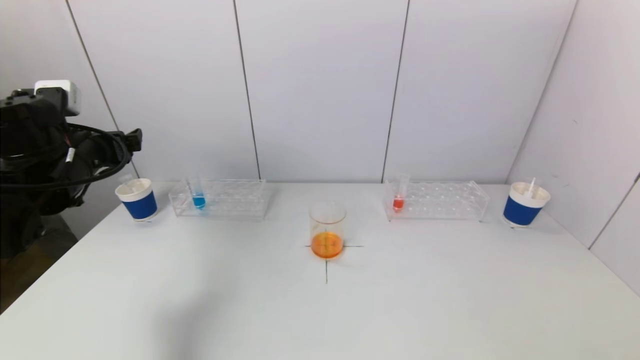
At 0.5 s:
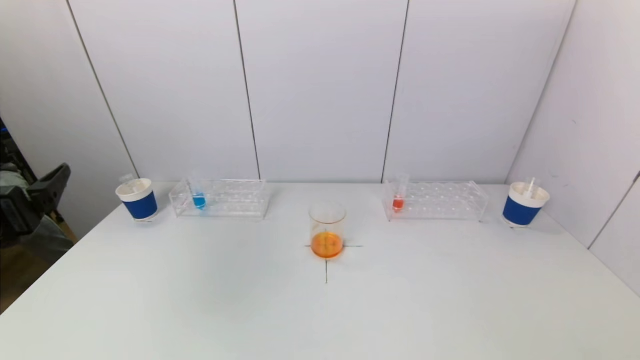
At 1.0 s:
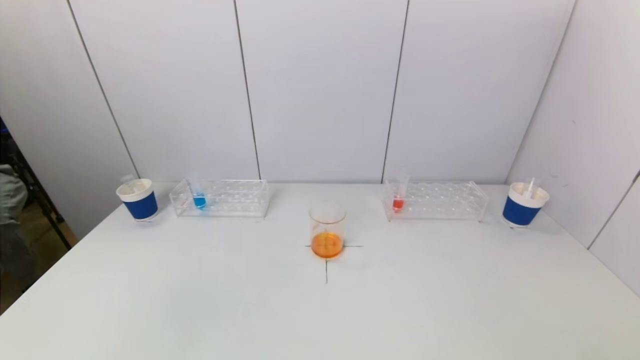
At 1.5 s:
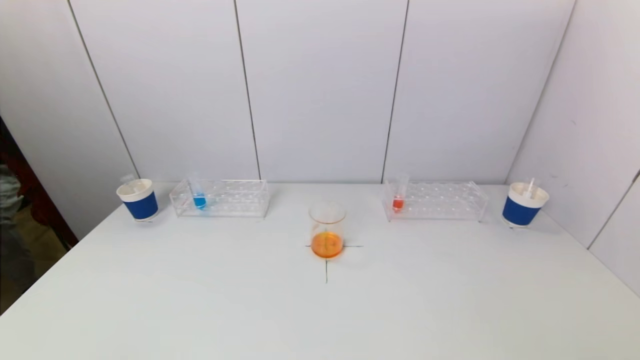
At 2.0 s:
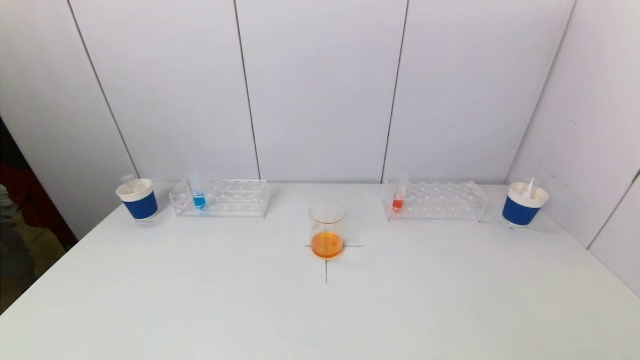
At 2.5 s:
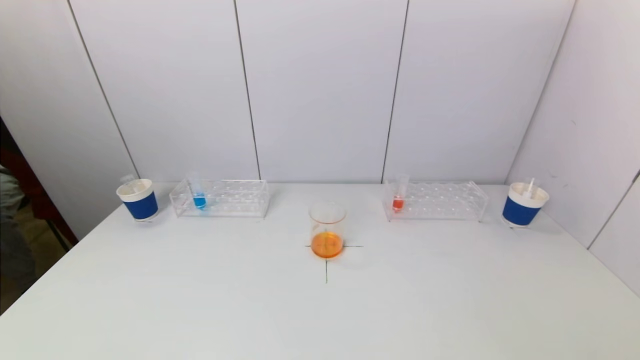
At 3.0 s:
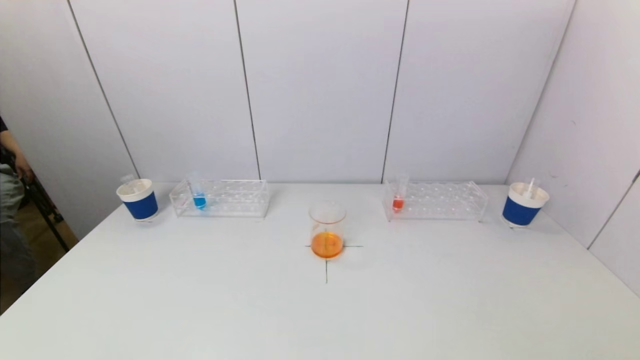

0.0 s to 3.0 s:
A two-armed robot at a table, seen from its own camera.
Task of the whole recording: pick up a test tube with pigment on left test tube rack and a test tube with pigment on right test tube rack by grippers and pour them into the beaker.
0.0 to 1.5 s: The left gripper is displaced backward by some 35 cm.

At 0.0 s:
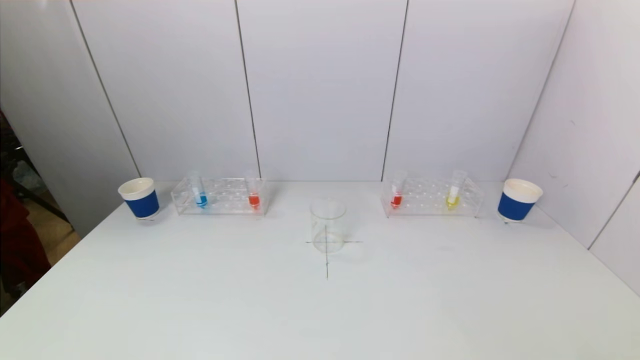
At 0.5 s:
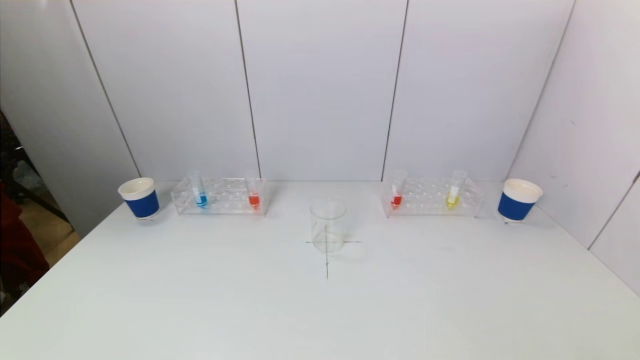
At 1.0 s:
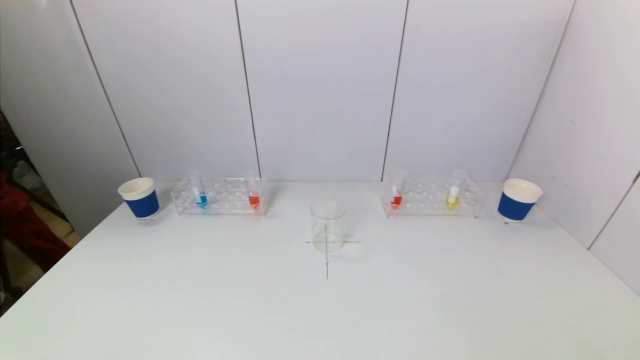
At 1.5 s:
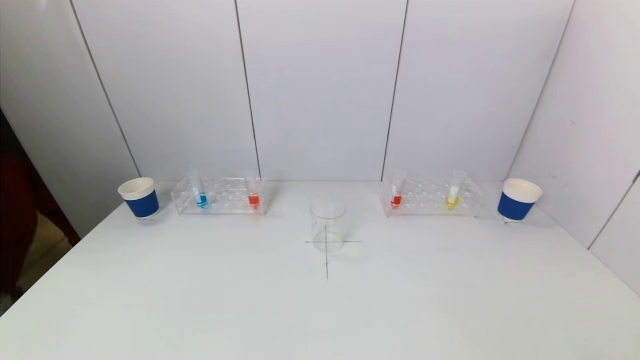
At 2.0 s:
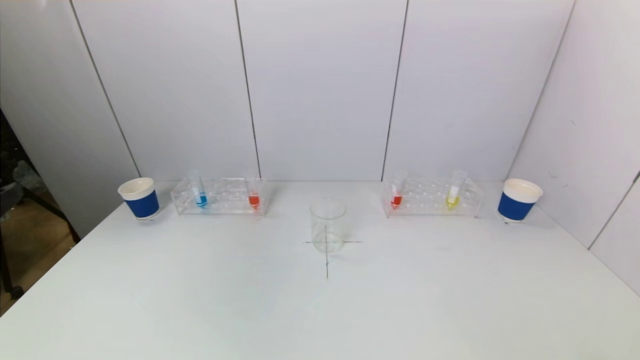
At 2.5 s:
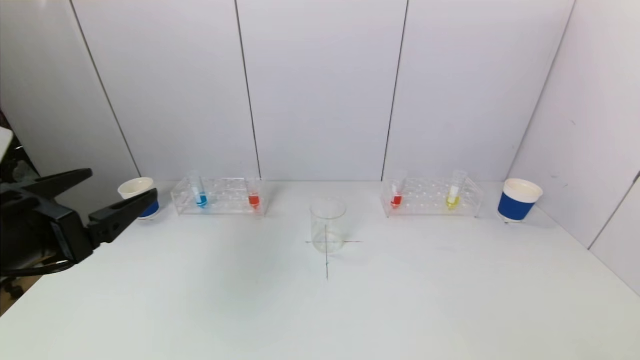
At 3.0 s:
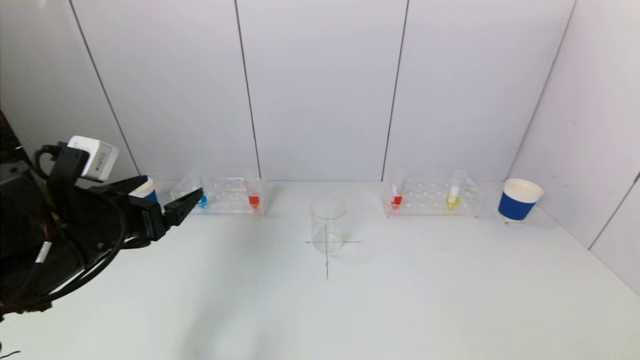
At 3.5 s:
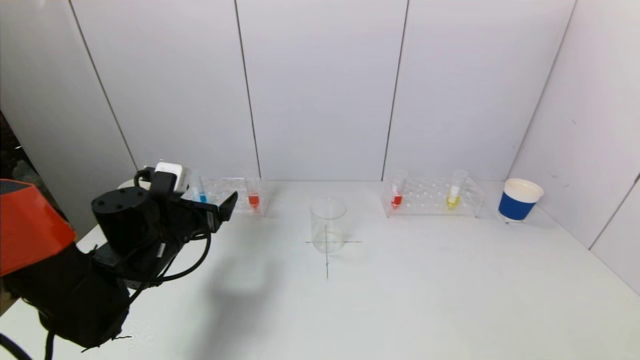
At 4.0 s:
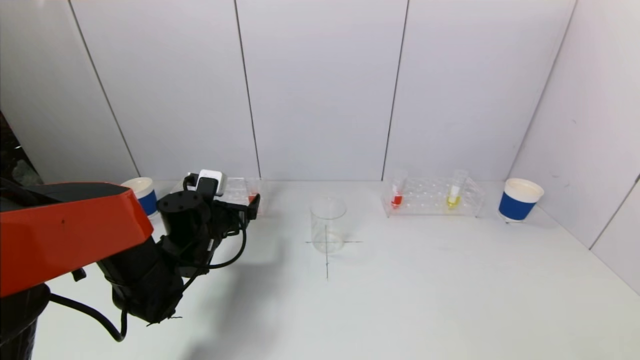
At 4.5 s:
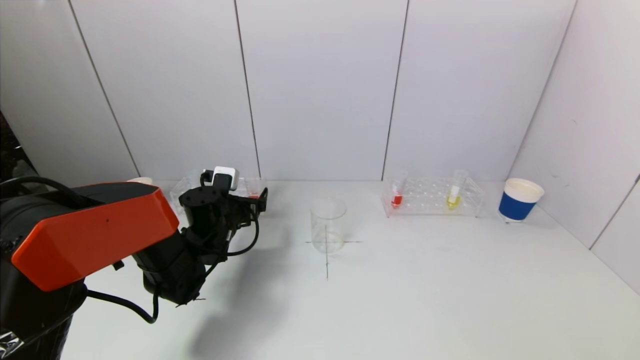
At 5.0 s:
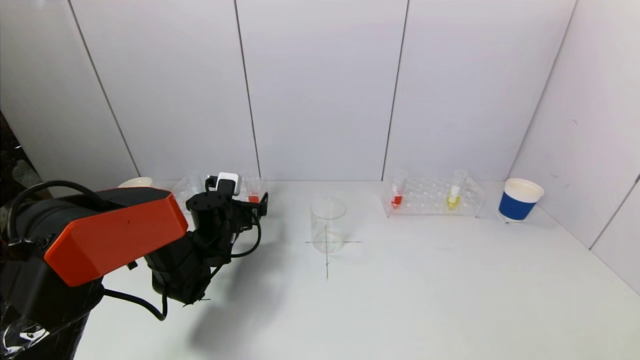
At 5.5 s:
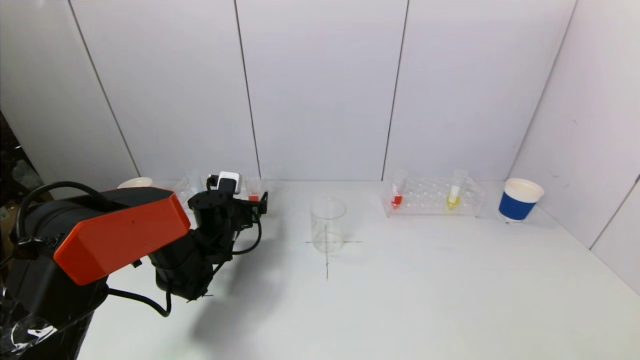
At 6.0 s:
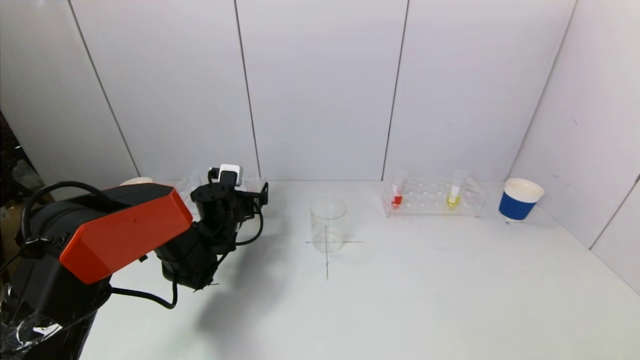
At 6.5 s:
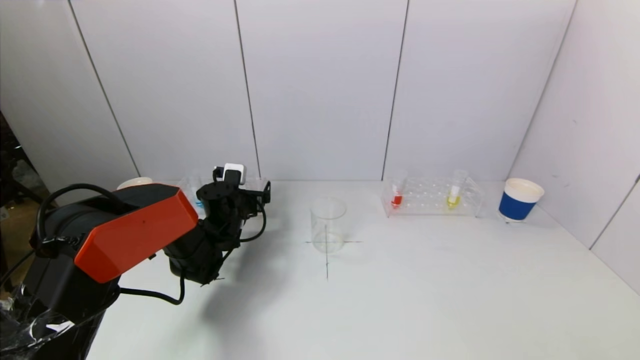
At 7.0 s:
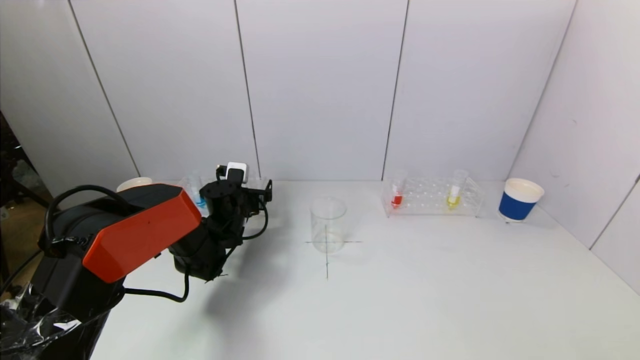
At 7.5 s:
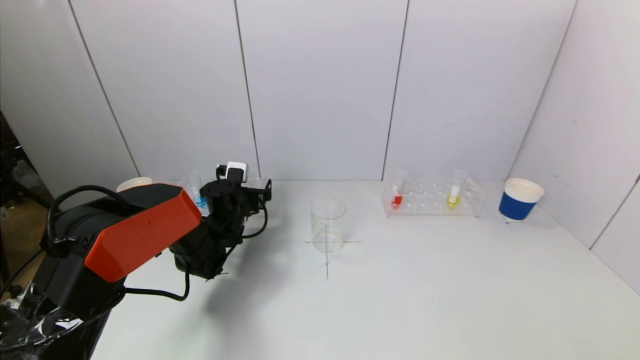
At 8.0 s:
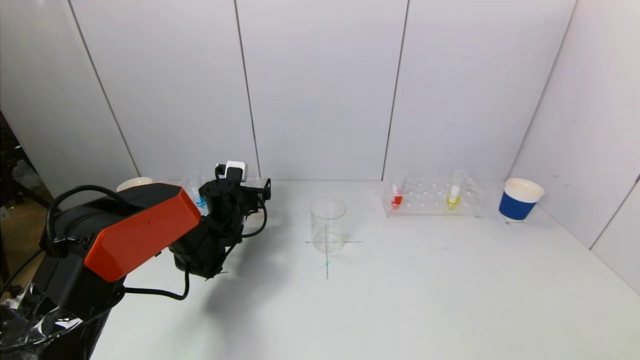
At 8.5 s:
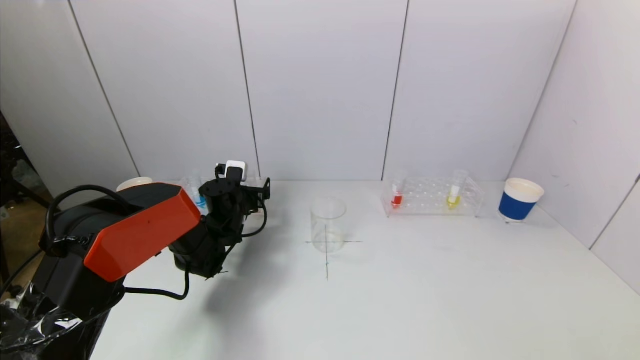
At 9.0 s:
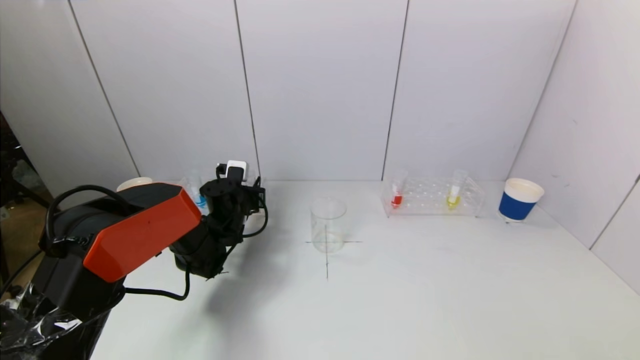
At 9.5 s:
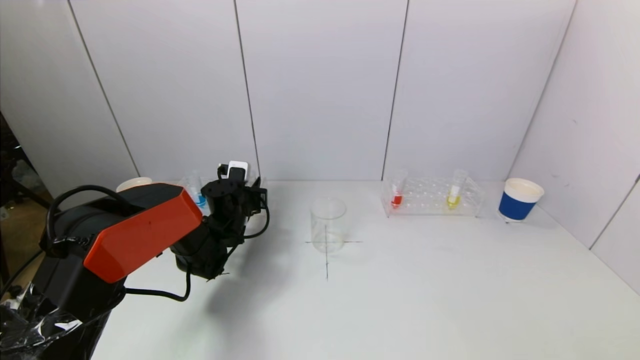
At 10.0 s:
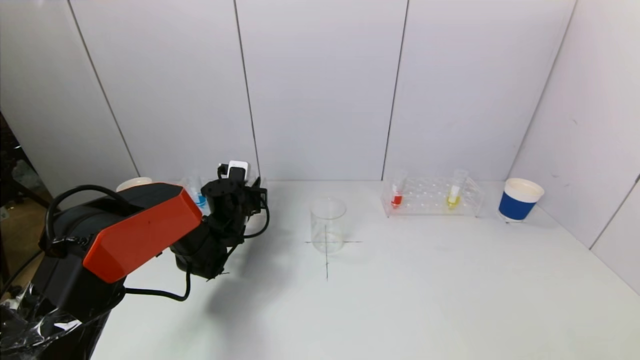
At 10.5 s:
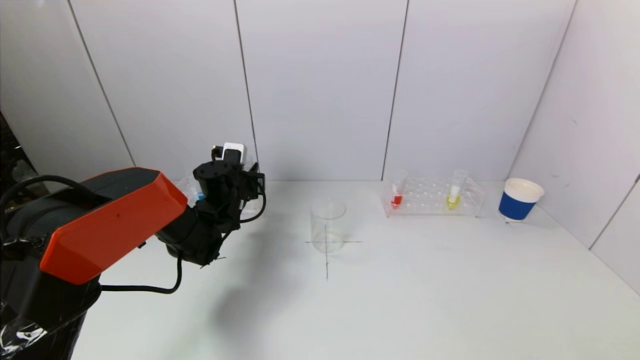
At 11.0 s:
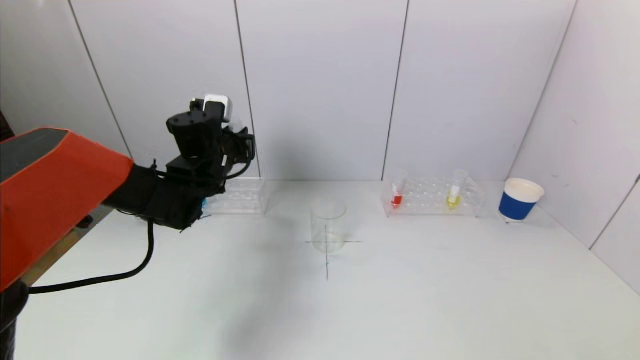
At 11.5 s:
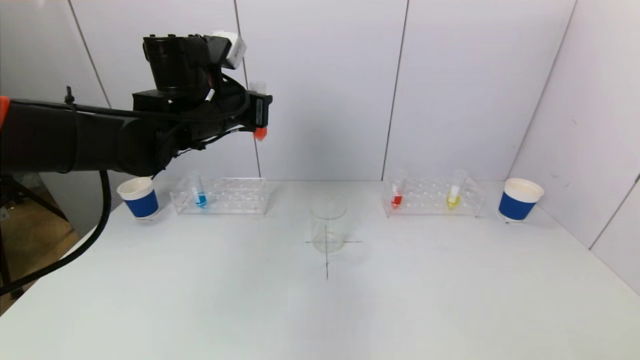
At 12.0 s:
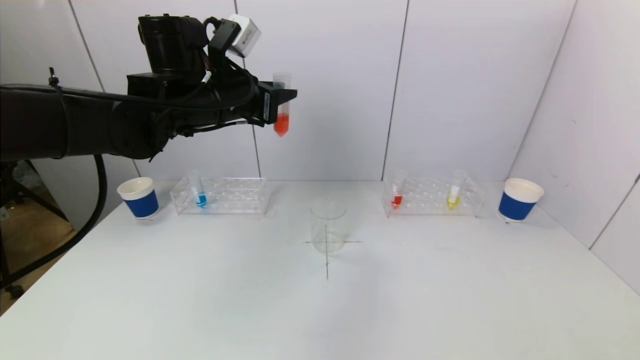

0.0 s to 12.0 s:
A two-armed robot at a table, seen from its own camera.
Task of the whole recording: pick up a test tube with pigment on left test tube rack and a test tube with pigment on right test tube rack by grippers and pour them into the beaker.
Step, 0.0 to 9.0 s: Grasp the red reagent with the left gripper.
0.0 to 2.0 s: The left gripper heads upward, covering some 20 cm.
2.0 to 4.0 s: The left gripper shifts about 35 cm forward and downward.
4.0 to 6.0 s: The left gripper is displaced forward by roughly 5 cm.
6.0 to 8.0 s: The grippers make only small movements.
8.0 to 10.0 s: The left gripper closes up.
10.0 to 12.0 s: The left gripper shifts some 25 cm upward.

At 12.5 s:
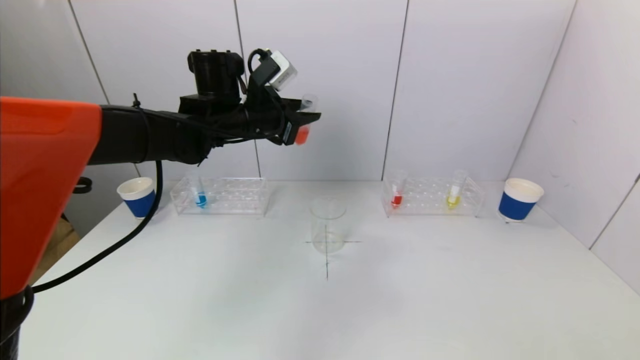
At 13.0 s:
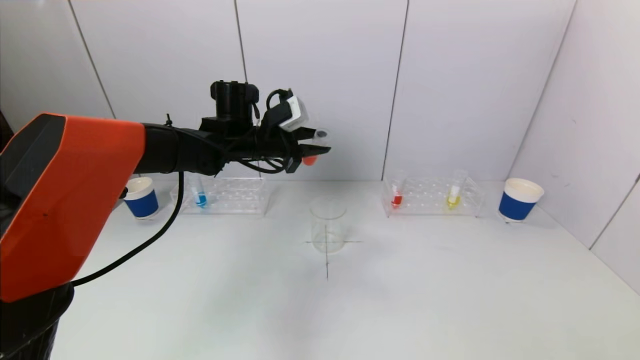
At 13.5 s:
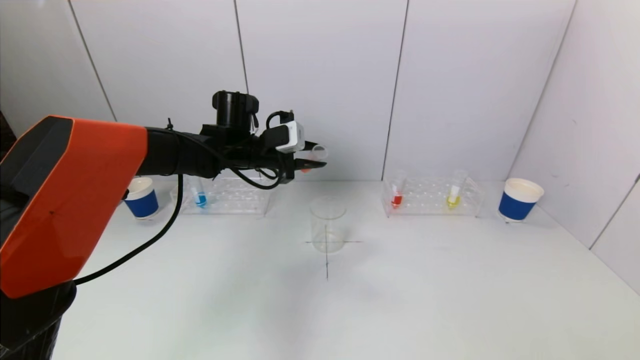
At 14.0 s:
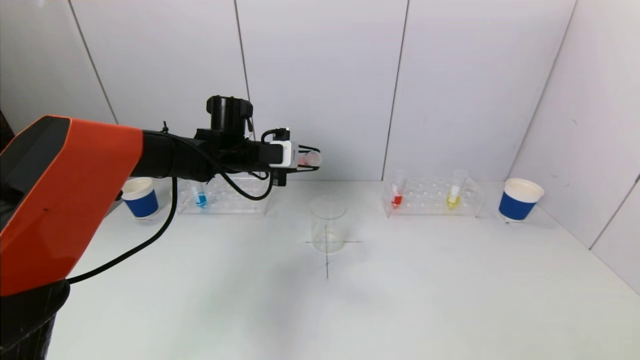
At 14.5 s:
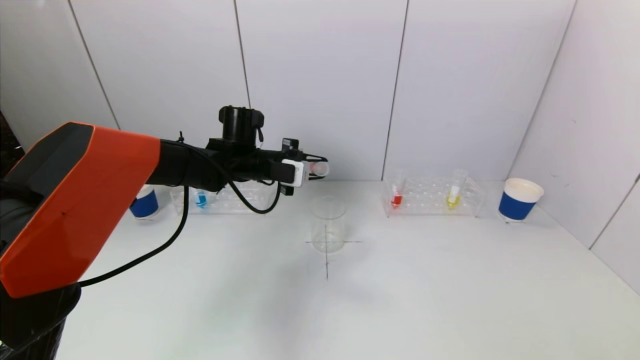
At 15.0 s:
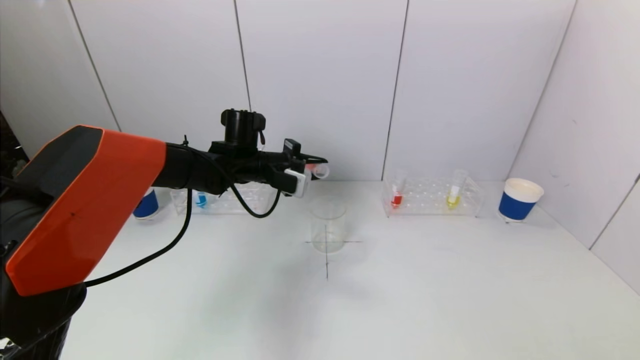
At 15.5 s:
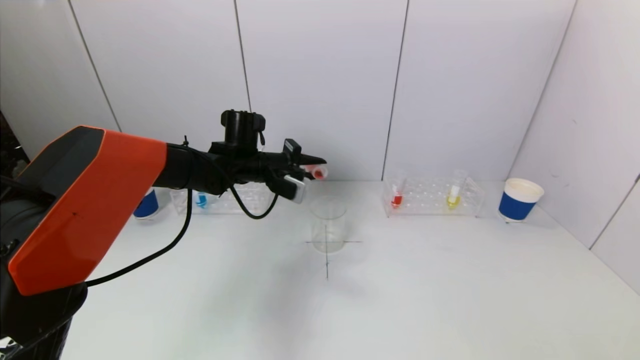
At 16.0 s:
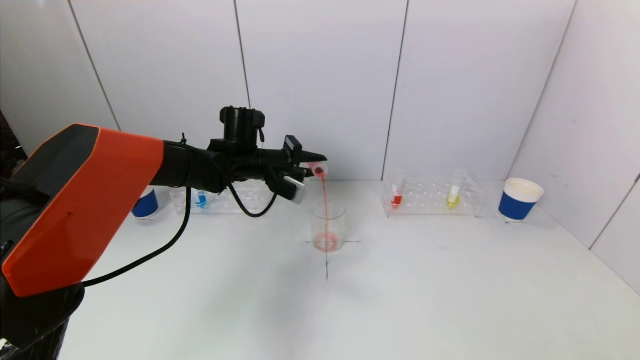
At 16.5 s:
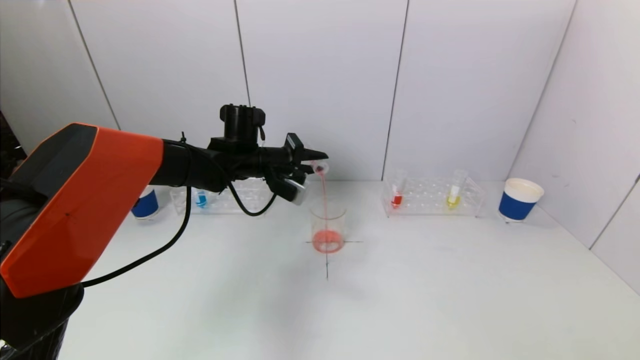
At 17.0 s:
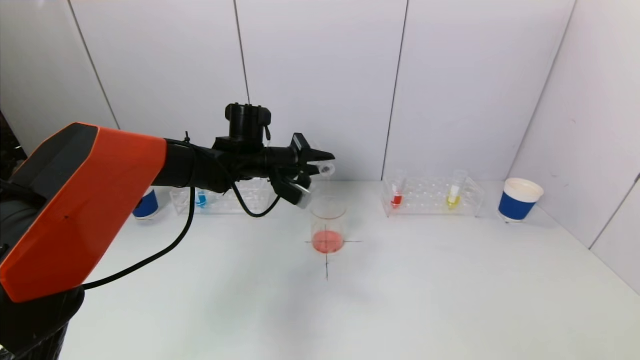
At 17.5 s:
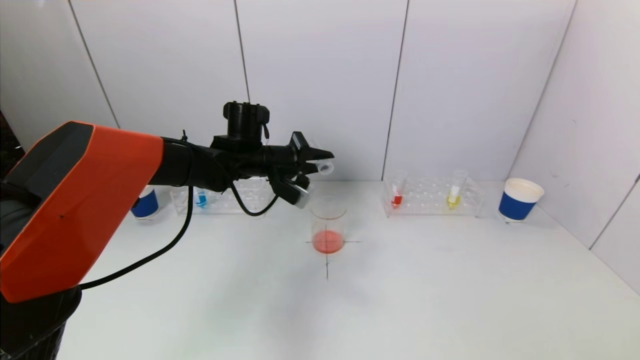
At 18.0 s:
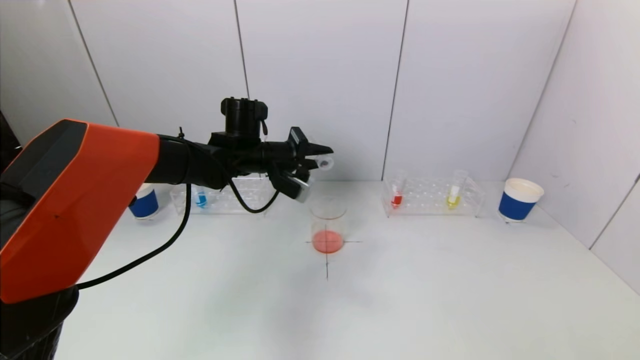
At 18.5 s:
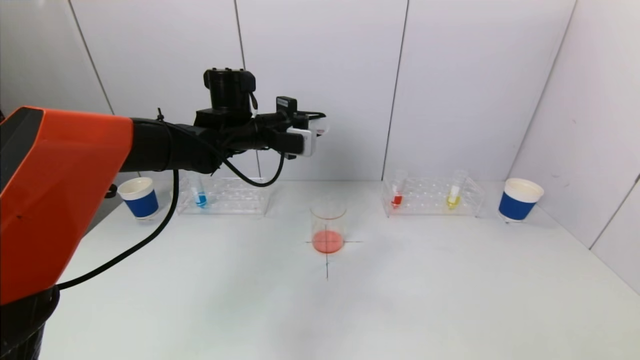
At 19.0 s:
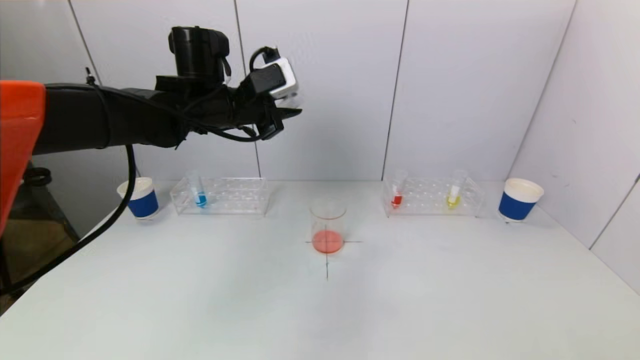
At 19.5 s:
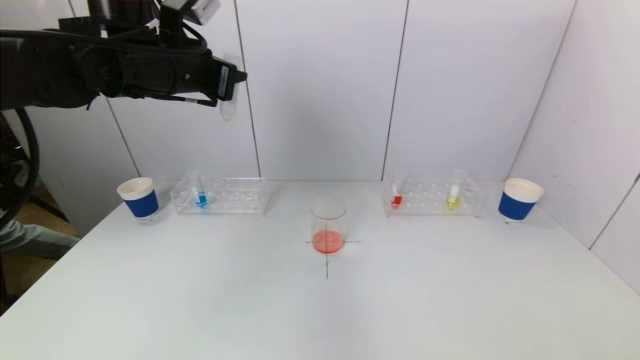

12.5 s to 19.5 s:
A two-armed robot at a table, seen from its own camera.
Task of the whole recording: pick up a test tube with pigment on left test tube rack and a test tube with pigment on right test tube rack by grippers and pour them into the beaker.
Step, 12.5 to 18.0 s: Pour the red reagent into the graduated cylinder with the left gripper.
12.5 to 14.5 s: The left gripper heads downward, covering approximately 10 cm.
16.0 to 17.5 s: The grippers move only a little.
17.5 to 19.5 s: The left gripper shifts approximately 20 cm upward, to the left and backward.
